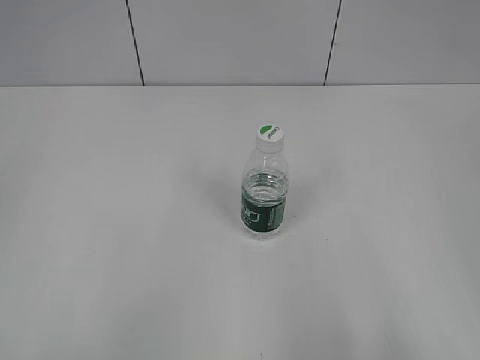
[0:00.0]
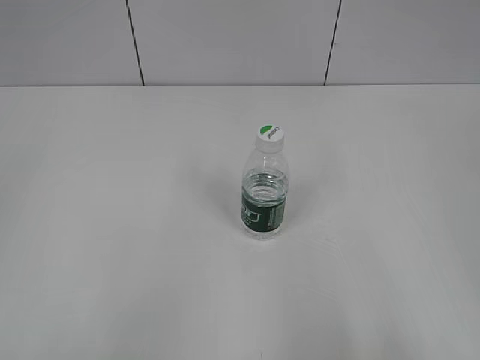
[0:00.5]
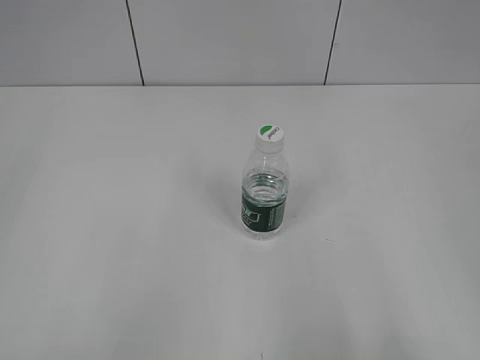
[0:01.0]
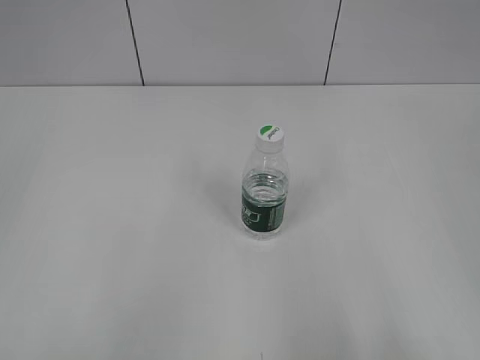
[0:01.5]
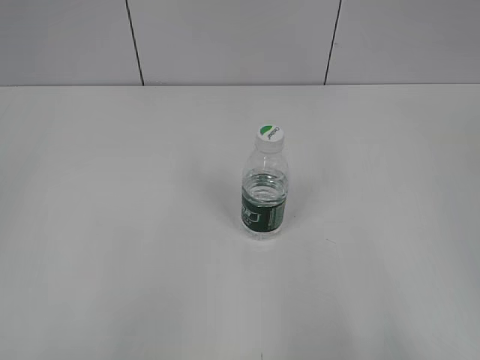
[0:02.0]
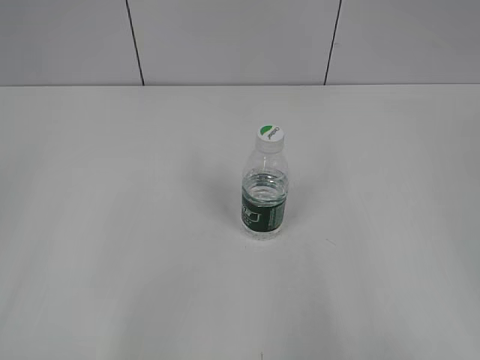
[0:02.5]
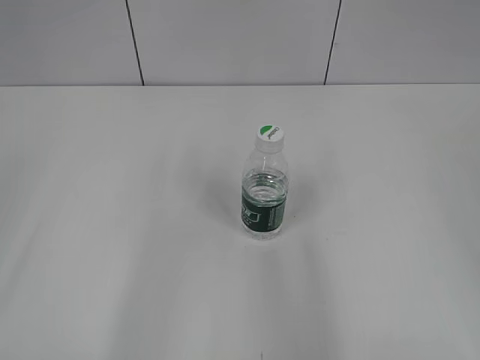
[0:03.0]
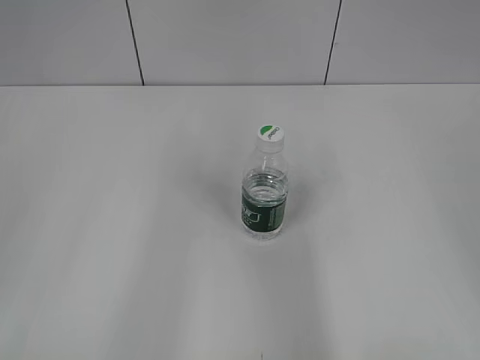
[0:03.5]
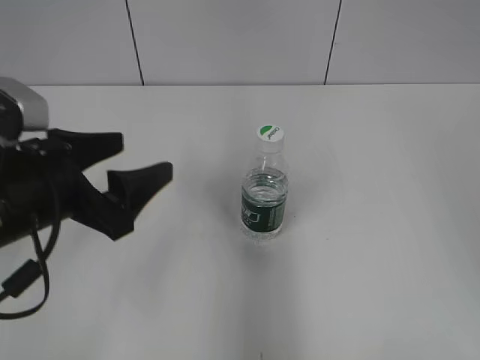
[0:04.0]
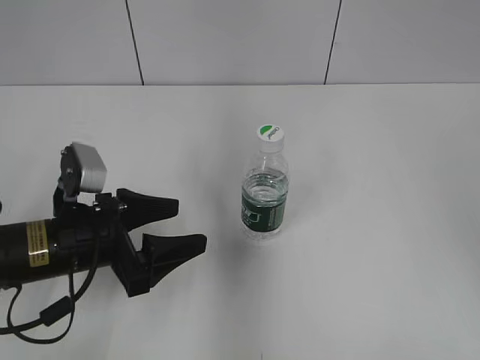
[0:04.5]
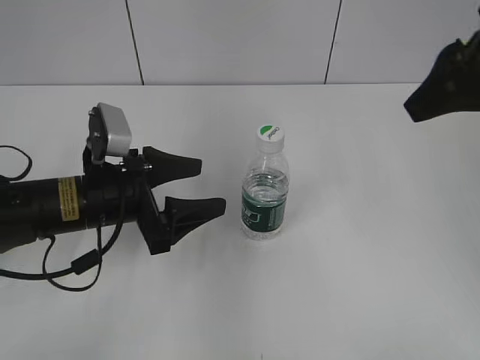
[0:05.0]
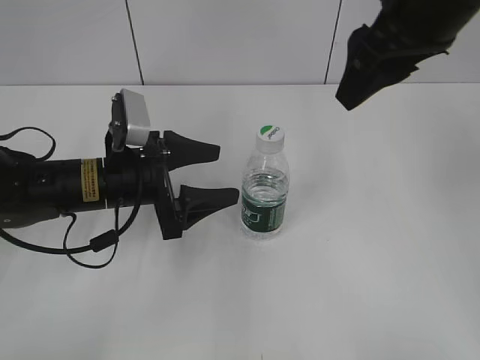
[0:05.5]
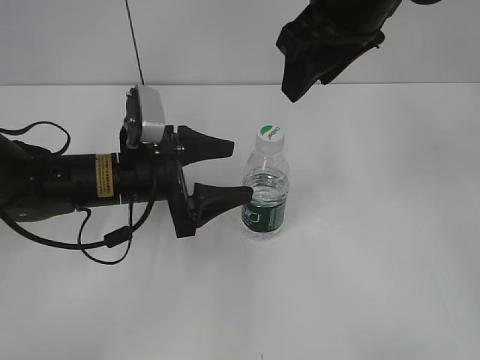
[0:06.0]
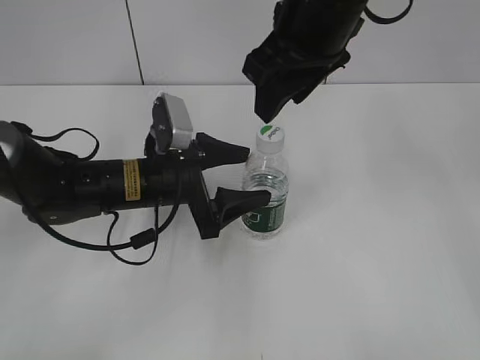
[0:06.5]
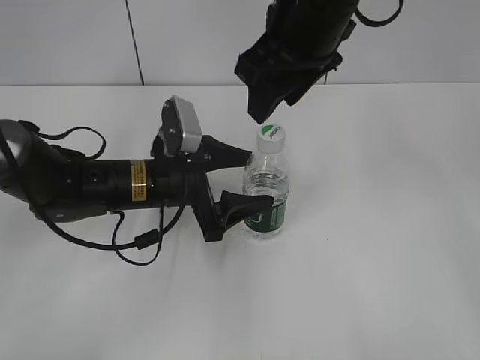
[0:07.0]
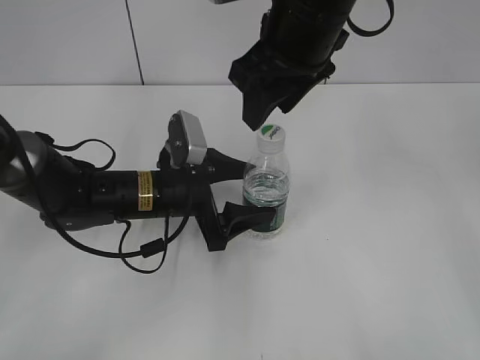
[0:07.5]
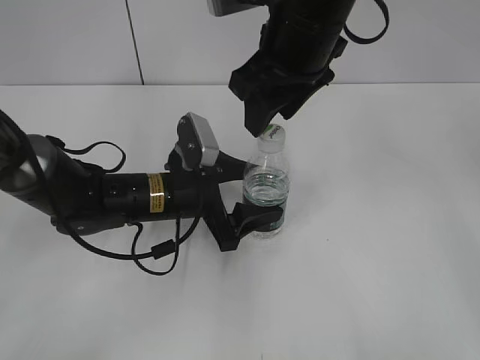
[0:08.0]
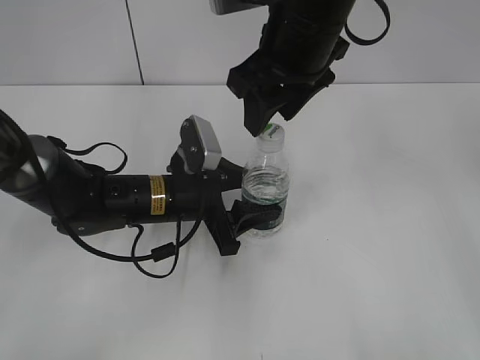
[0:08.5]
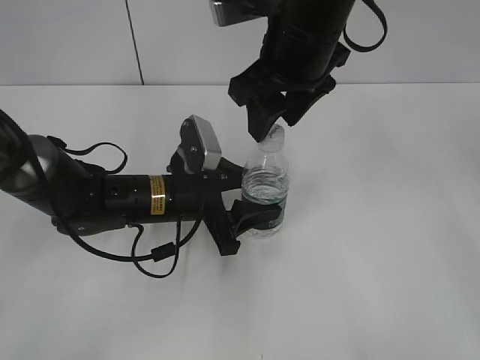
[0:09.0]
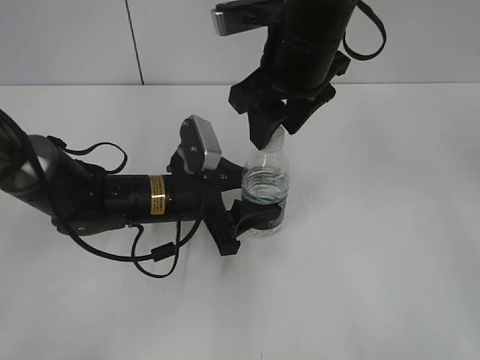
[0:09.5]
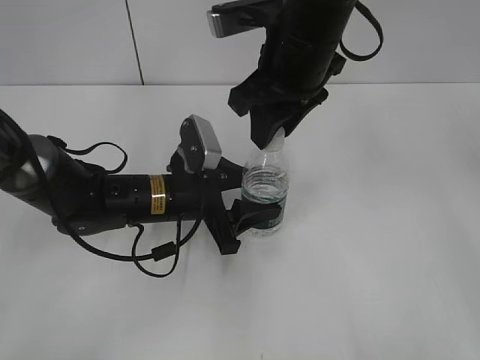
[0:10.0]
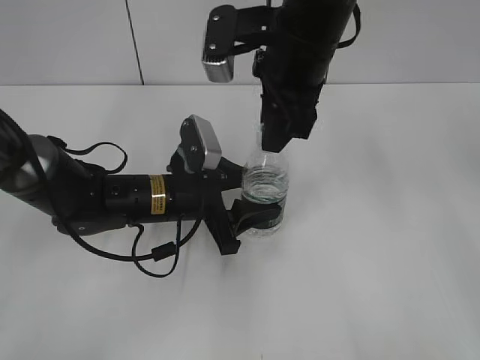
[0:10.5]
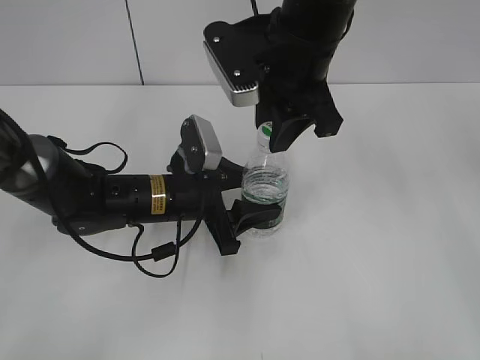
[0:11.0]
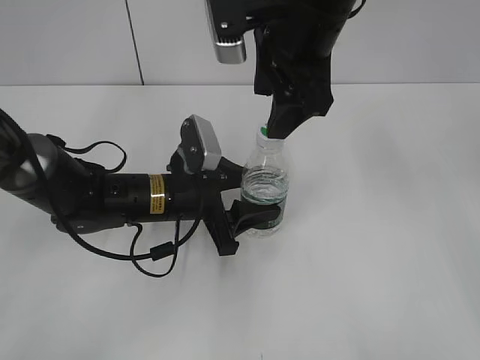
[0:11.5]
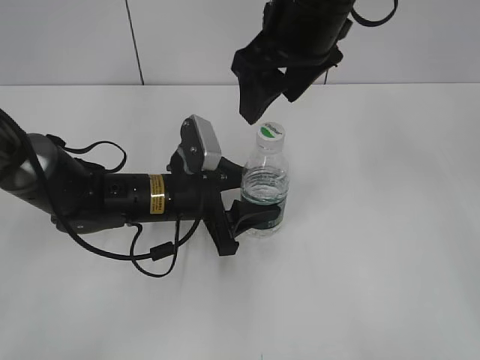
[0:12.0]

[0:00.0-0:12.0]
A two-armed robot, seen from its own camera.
Step, 0:00.0 to 0:08.0: Grasp the bottle and move it to the center of the table with the left gripper.
0:02.0 to 0:04.0: The right gripper moves forward and upward, about 15 cm. Meanwhile the left gripper moves forward, to the right and downward, approximately 25 cm, and opens.
0:04.0 to 0:06.0: The left gripper goes some 15 cm forward, downward and to the right. The right gripper shifts about 30 cm to the left and forward.
0:06.0 to 0:08.0: The left gripper moves roughly 5 cm; the right gripper ends up some 5 cm from where it was.
0:08.0 to 0:10.0: The left gripper closes up. The right gripper closes.
0:10.0 to 0:12.0: The right gripper opens up.

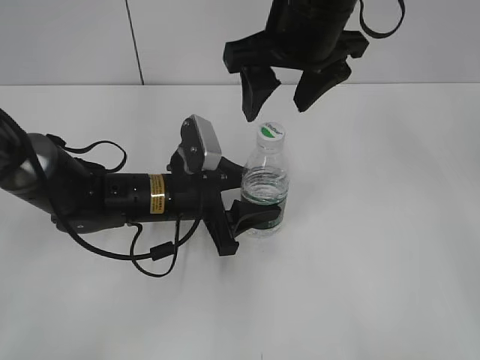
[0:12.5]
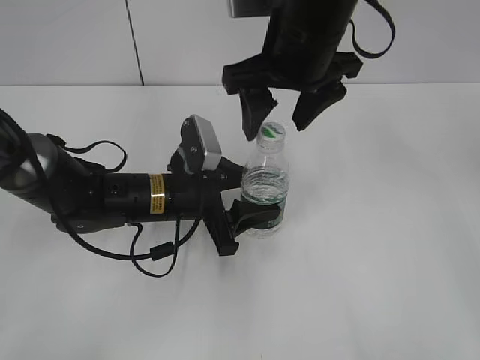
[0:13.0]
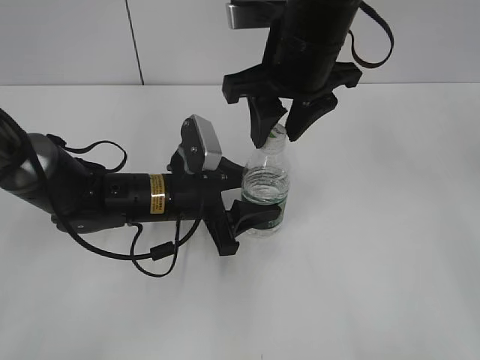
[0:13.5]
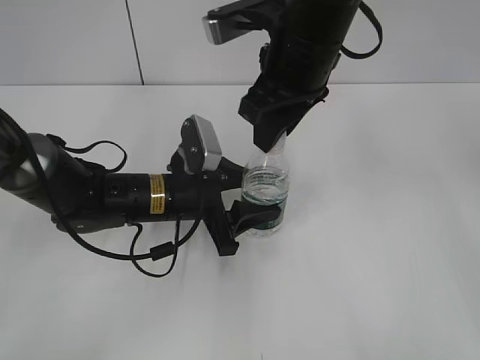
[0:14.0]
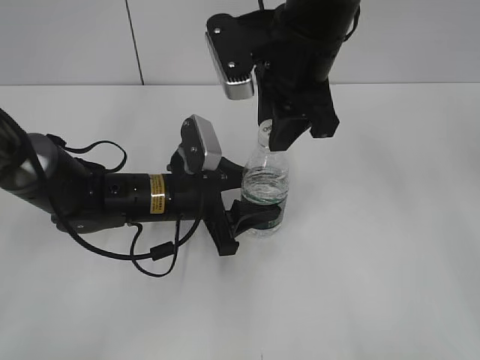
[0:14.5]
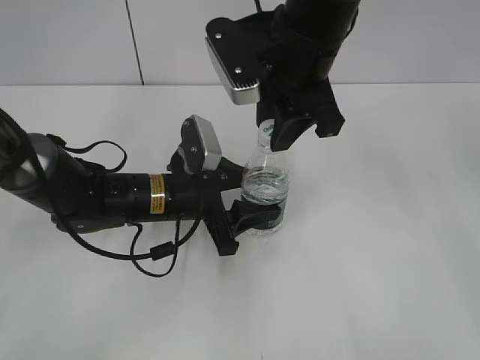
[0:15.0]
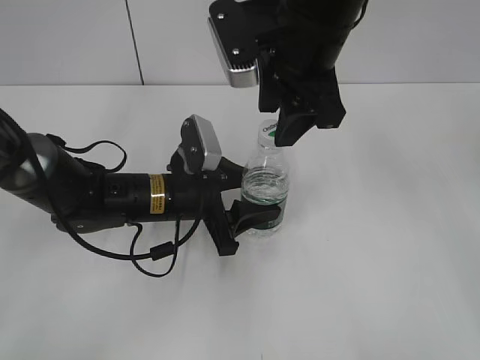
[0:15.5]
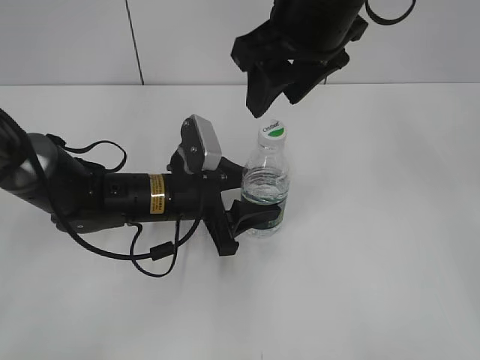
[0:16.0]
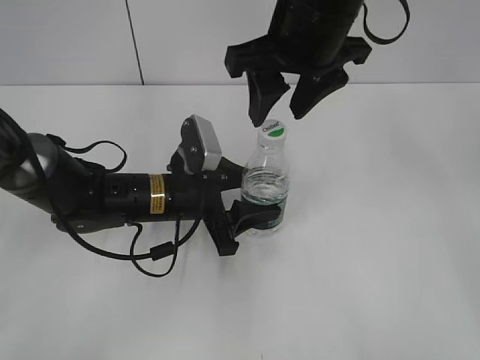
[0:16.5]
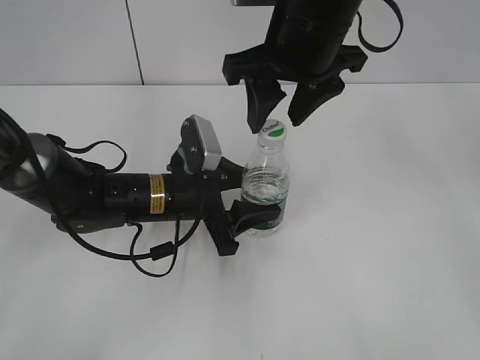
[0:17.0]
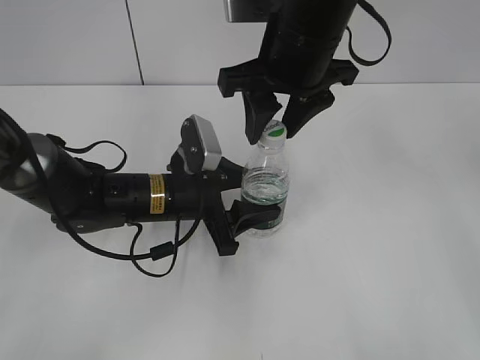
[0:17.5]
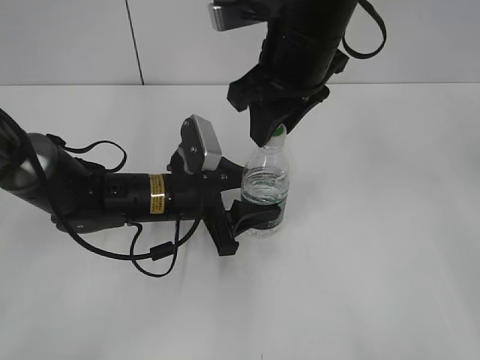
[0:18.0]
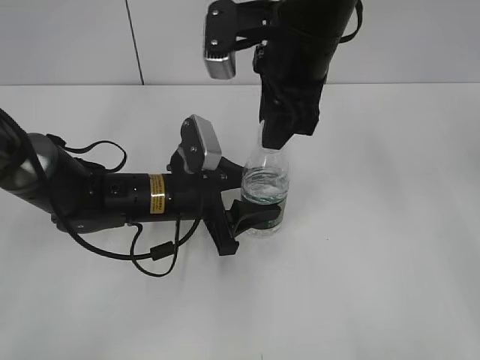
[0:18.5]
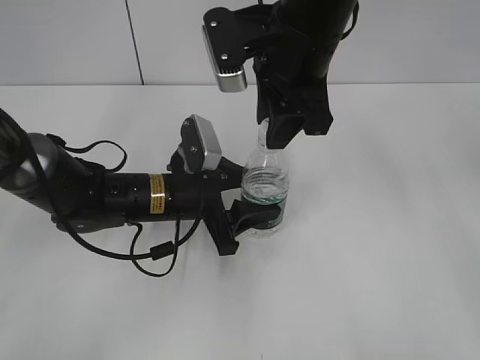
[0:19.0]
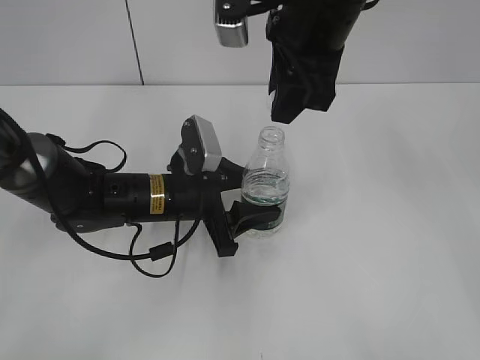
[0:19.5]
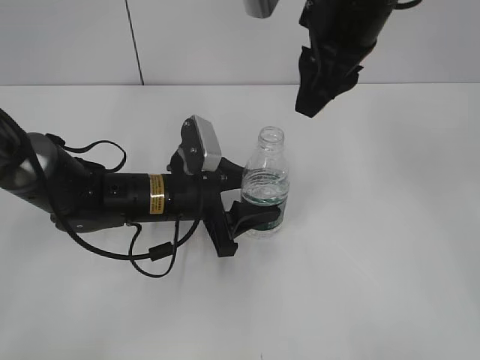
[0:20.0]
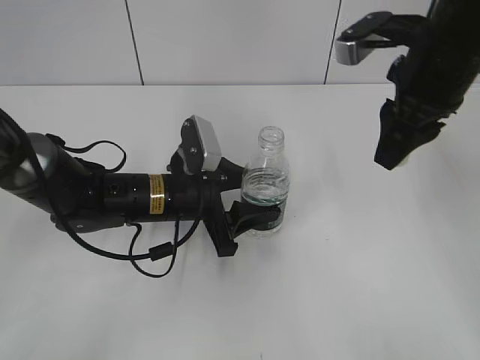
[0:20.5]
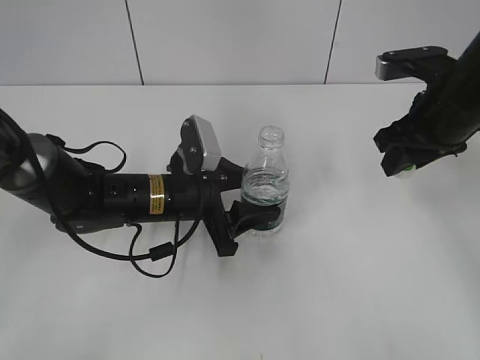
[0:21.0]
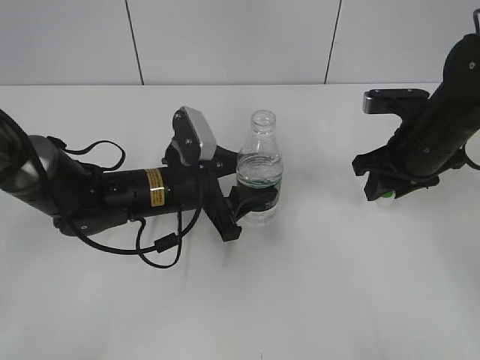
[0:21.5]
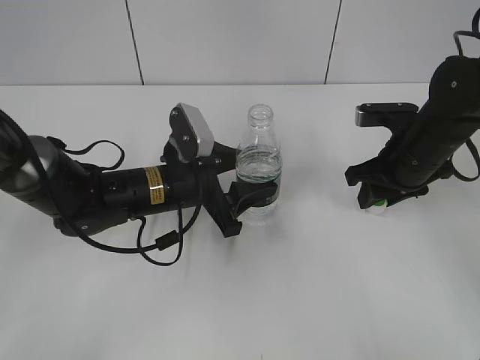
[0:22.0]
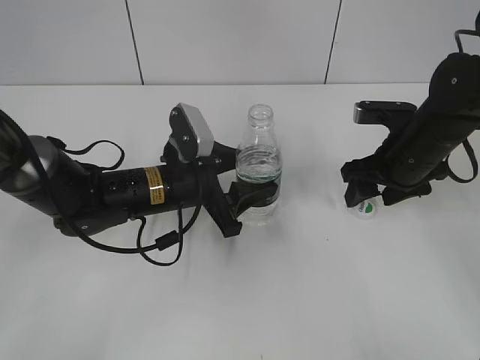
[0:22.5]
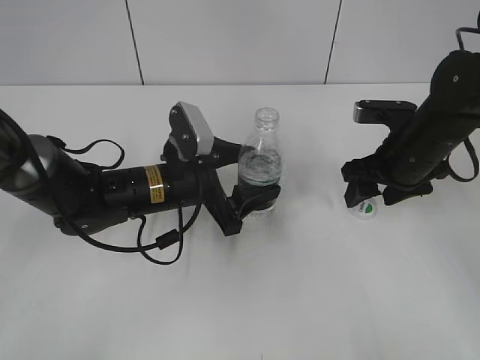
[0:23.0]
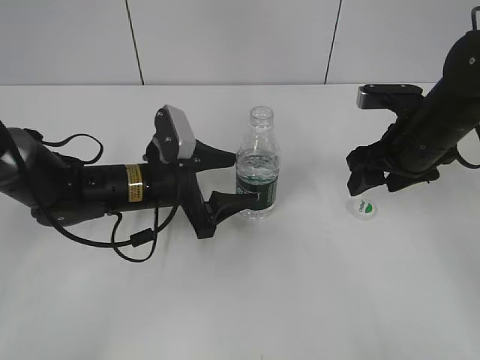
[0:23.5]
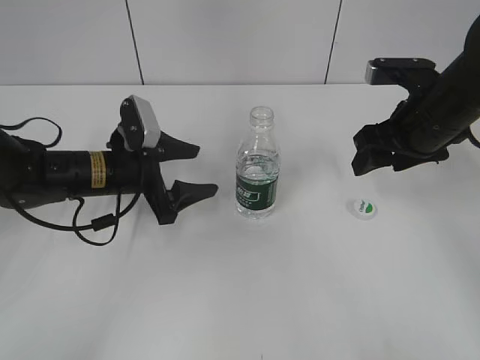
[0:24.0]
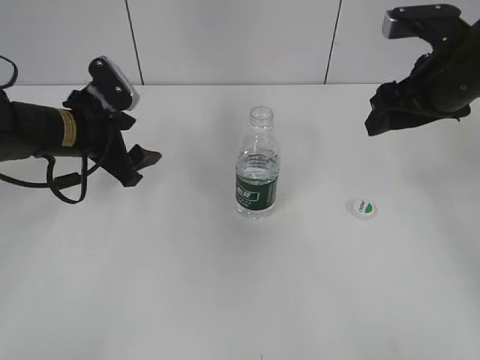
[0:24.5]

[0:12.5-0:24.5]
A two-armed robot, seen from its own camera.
Step, 0:12.5 to 0:19.0: Unscrew the bottle cap with the right gripper while holding the bottle with the left gripper.
Step, 0:19.5 to 0:22.0: Place the bottle cap on the table with the right gripper.
Step, 0:22.5 to 0:23.0: Place the bottle on the table with the left gripper.
0:12.5 to 0:14.5: The right gripper closes up.
0:14.5 to 0:16.5: The right gripper opens its fingers.
0:16.5 to 0:18.5: The right gripper closes its fingers.
0:18.5 to 0:20.5: The right gripper shifts some 10 cm to the right.
0:20.5 to 0:22.5: The right gripper is displaced downward by roughly 15 cm, and opens its fingers.
0:22.5 to 0:24.5: The right gripper heads upward, covering roughly 10 cm. The left gripper shifts roughly 10 cm to the left, and opens.

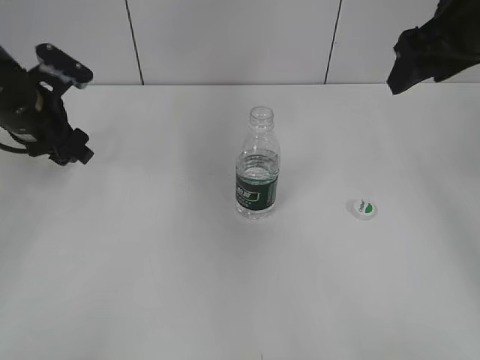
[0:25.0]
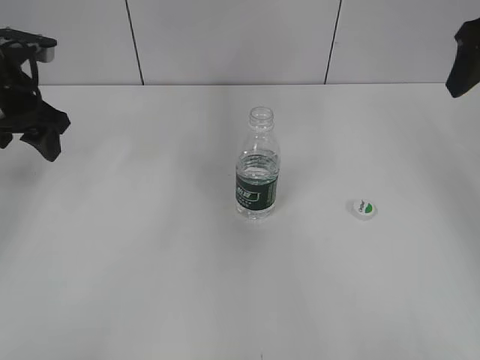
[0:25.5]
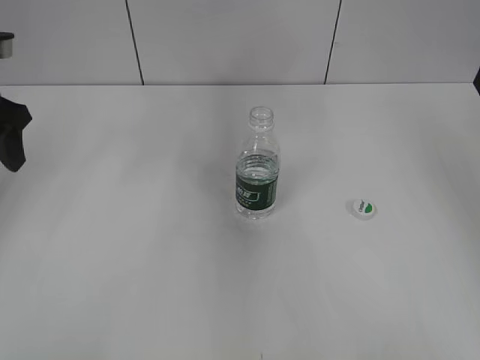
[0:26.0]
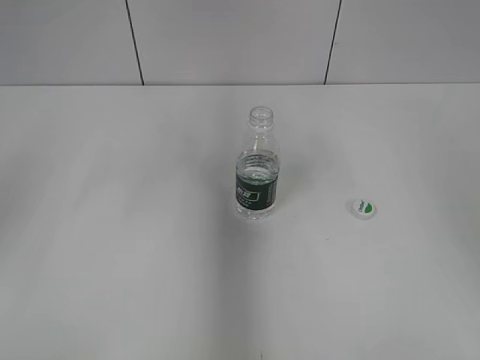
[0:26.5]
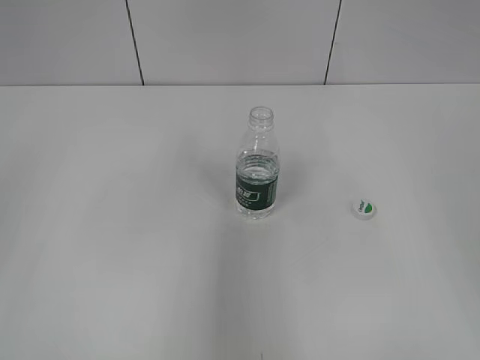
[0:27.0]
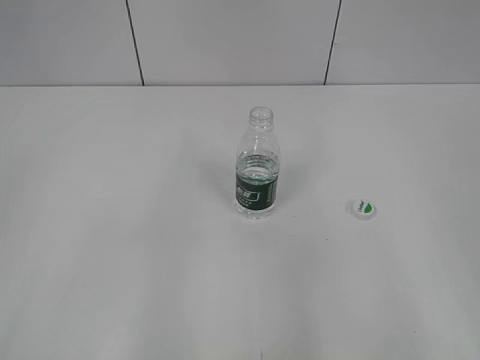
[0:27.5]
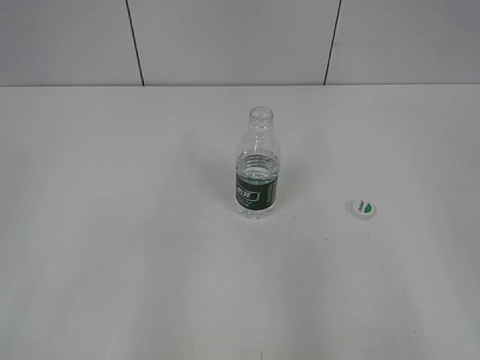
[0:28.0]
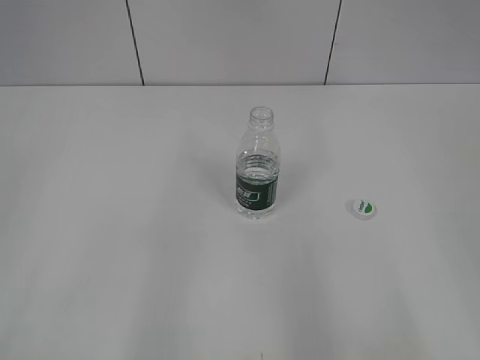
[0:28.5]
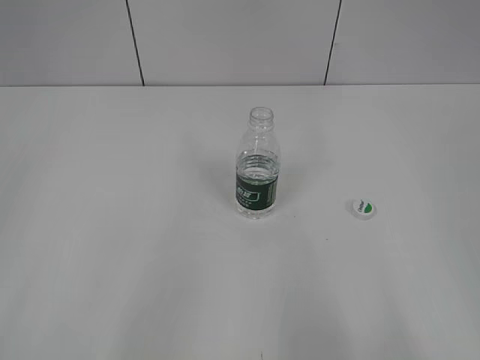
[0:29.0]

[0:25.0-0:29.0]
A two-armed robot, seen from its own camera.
0:25.0 to 0:27.0: The left gripper heads backward and upward, covering some 25 cm. The right gripper goes roughly 20 cm backward.
0:27.0 to 0:29.0: Both grippers travel together backward, some 15 cm.
